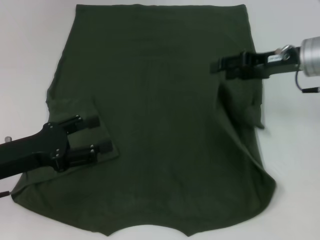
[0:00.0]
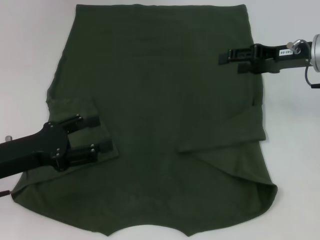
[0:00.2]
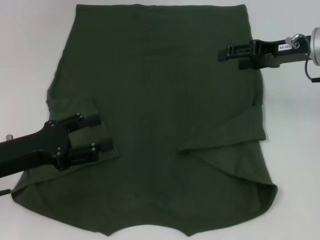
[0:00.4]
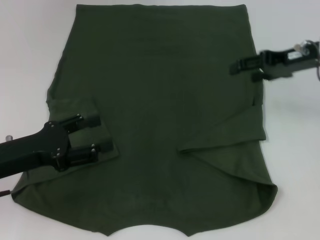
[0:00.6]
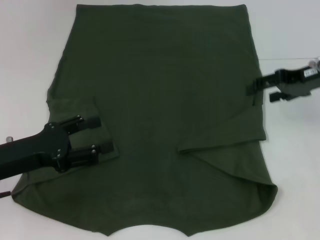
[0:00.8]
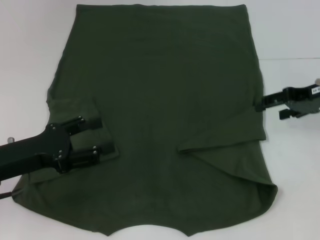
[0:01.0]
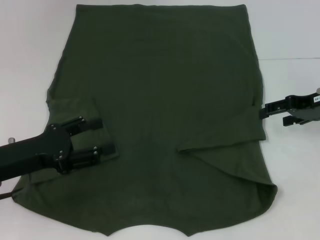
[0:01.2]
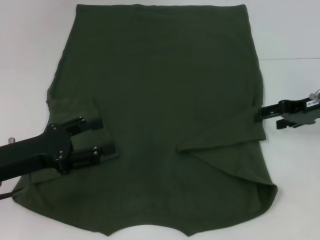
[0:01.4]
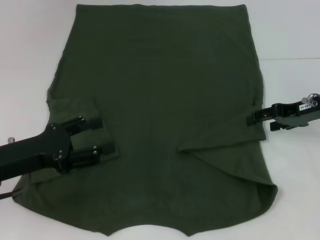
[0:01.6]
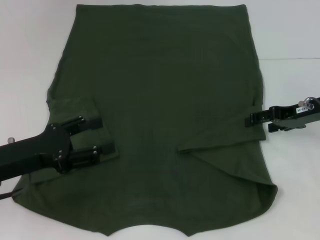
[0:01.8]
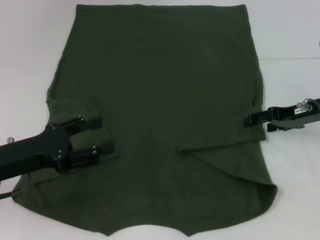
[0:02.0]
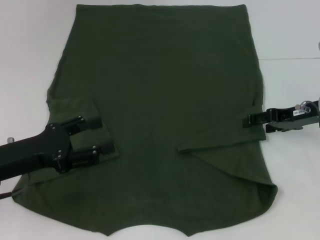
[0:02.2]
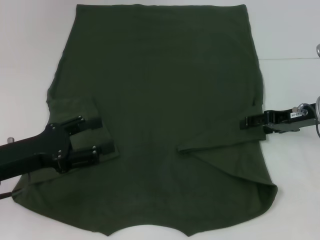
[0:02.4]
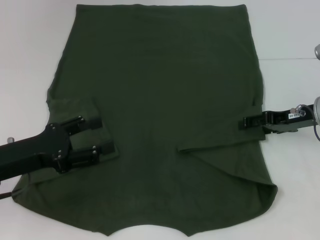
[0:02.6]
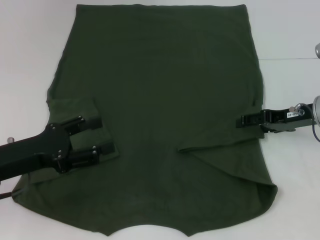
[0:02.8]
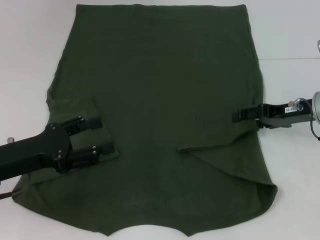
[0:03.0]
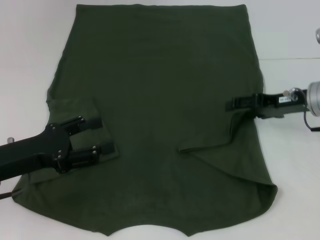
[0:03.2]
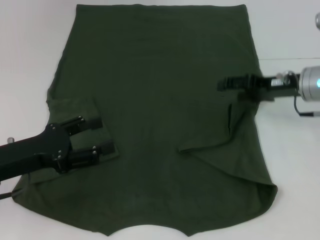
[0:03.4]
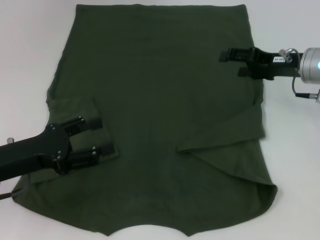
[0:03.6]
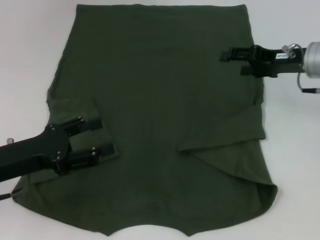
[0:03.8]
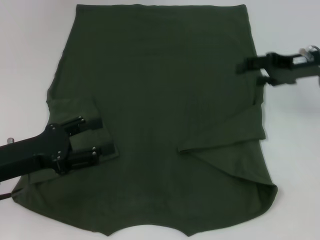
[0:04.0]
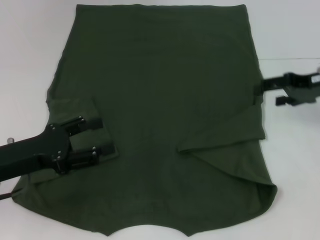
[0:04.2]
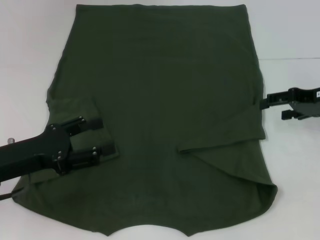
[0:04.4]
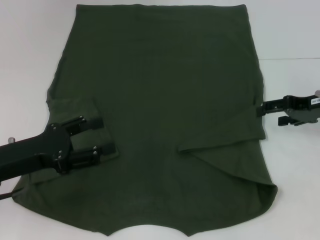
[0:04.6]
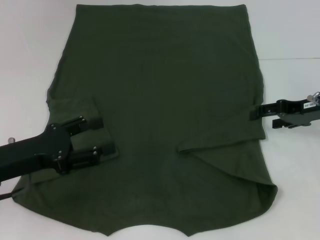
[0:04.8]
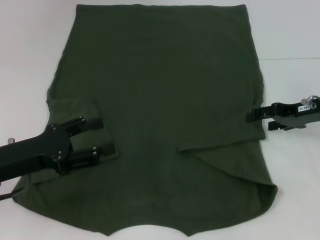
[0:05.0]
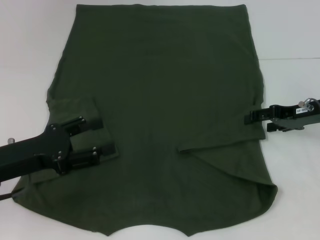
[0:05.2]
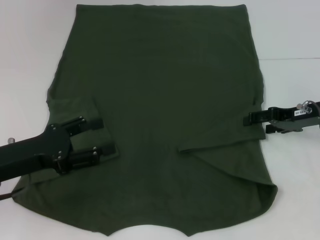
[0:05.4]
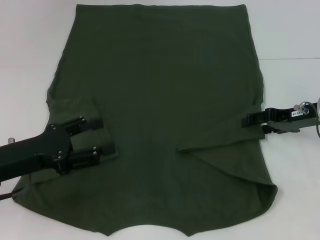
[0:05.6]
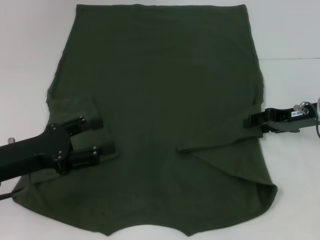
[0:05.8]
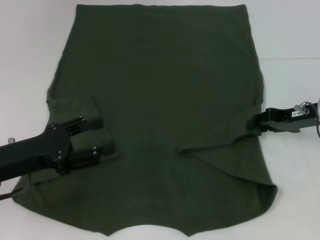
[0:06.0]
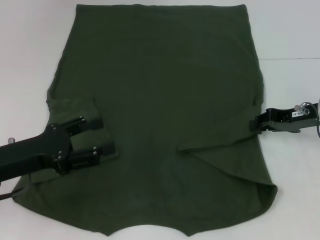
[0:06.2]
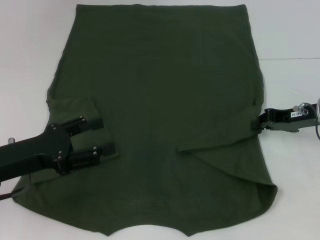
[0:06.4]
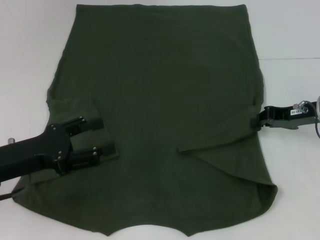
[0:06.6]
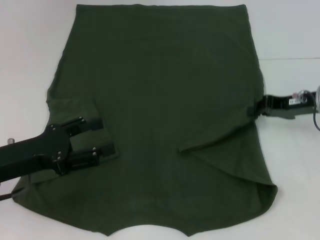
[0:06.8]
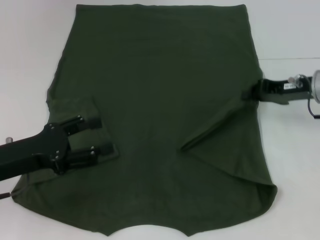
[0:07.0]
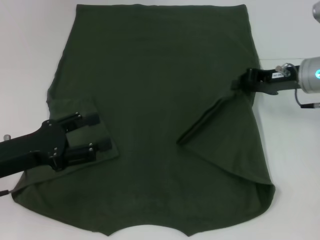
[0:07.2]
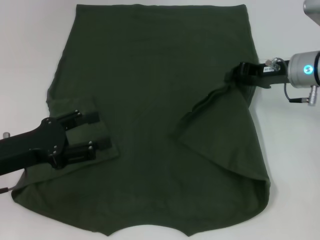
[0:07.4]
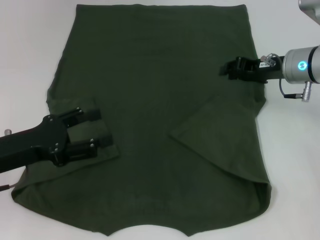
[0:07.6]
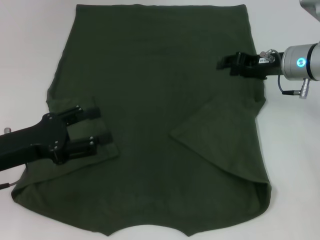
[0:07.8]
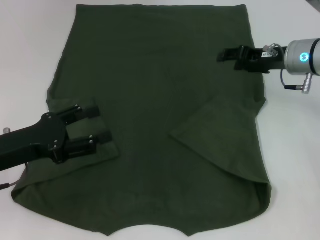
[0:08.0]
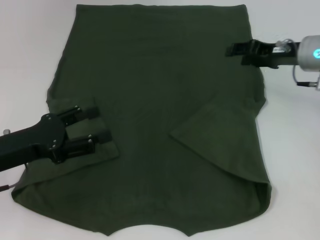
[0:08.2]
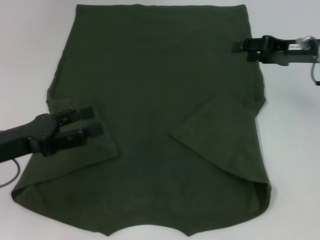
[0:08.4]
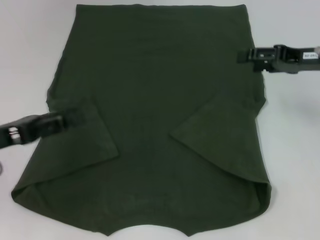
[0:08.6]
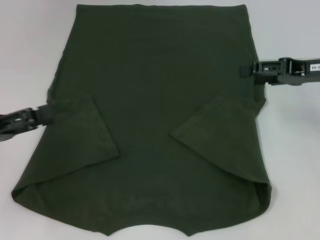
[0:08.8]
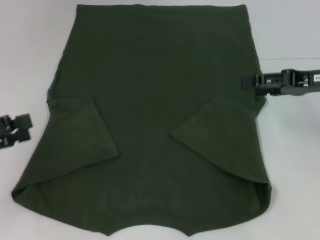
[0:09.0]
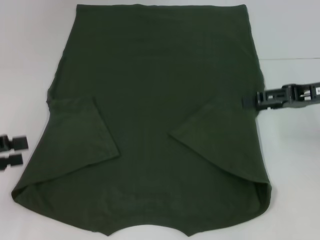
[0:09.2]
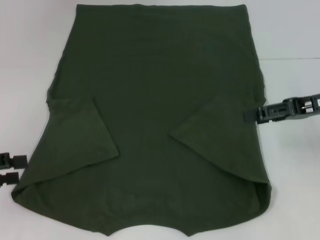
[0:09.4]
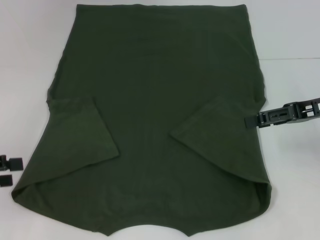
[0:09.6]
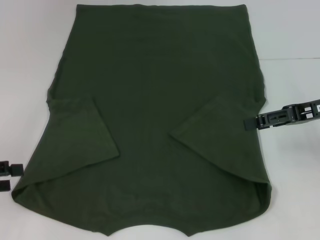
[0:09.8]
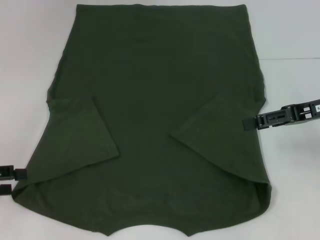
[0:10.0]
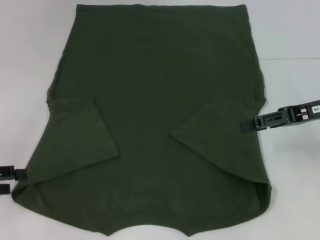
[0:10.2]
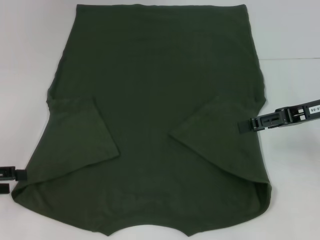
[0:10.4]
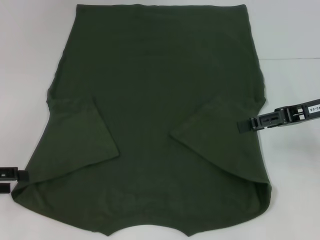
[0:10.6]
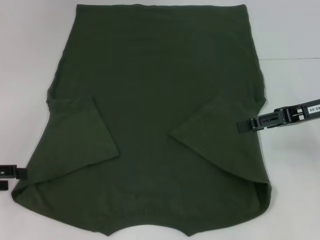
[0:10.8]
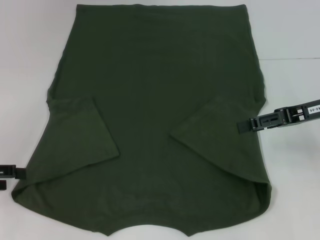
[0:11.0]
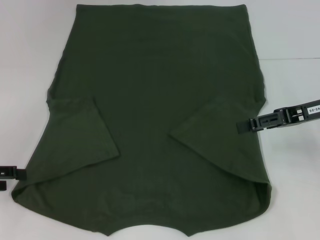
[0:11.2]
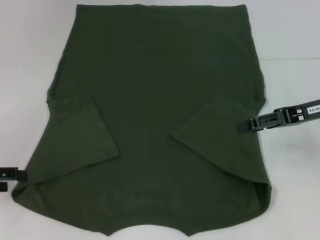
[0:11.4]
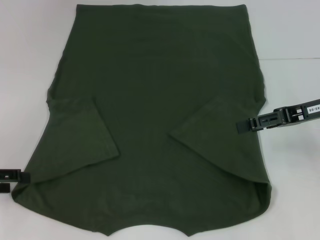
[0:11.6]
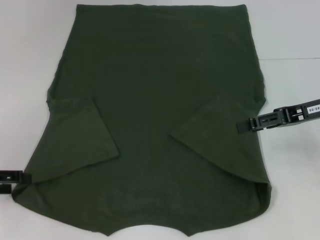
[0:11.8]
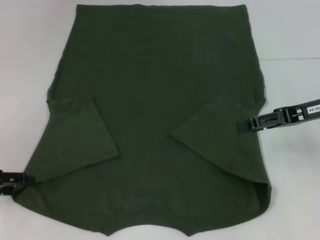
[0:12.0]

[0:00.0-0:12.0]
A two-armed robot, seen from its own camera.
Step, 0:00.0 to 0:08.8: Fold the bottom right sleeve with your right hand.
0:00.0 to 0:01.6: The right gripper moves about 5 cm.
0:01.6 to 0:03.0: There are only small adjustments of the grippers.
0:03.0 to 0:04.4: The right gripper shifts by roughly 5 cm.
0:04.4 to 0:06.0: The right gripper ends up about 5 cm from where it was.
0:06.0 to 0:07.6: The right gripper heads to the left, covering roughly 5 cm, and closes up.
0:07.6 to 0:09.0: The left gripper heads to the left, covering approximately 10 cm. The right gripper is displaced to the right and backward by some 10 cm, and opens up.
0:10.4 to 0:12.0: The grippers move only a little.

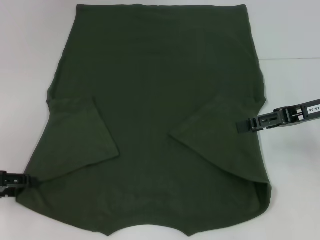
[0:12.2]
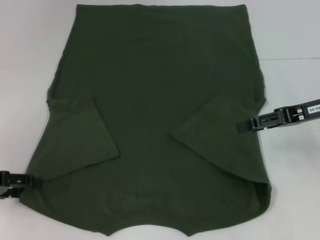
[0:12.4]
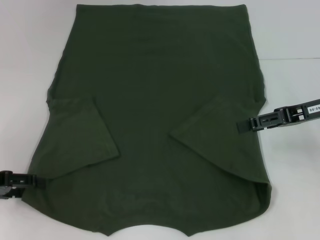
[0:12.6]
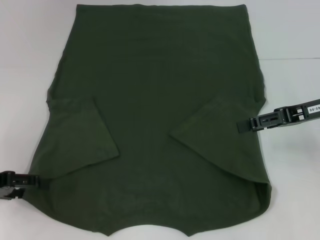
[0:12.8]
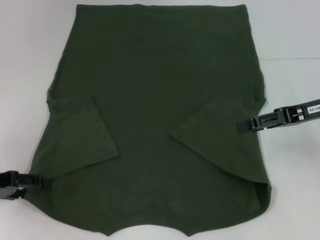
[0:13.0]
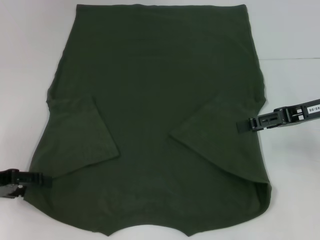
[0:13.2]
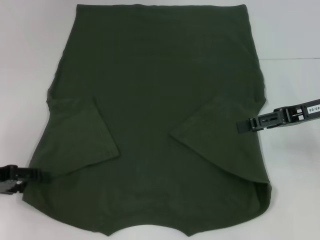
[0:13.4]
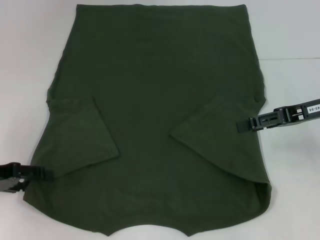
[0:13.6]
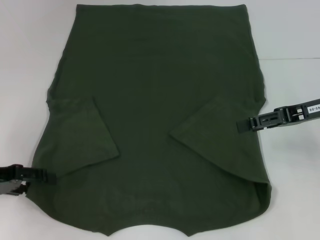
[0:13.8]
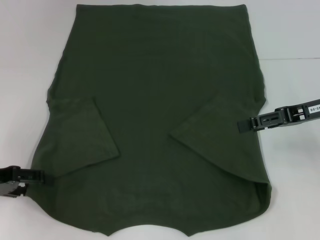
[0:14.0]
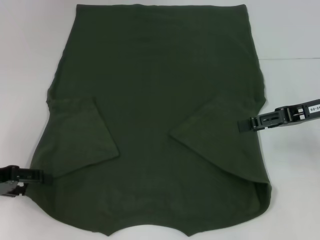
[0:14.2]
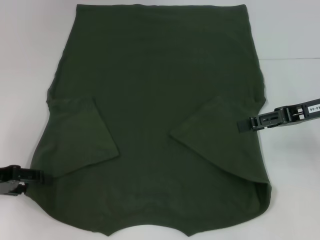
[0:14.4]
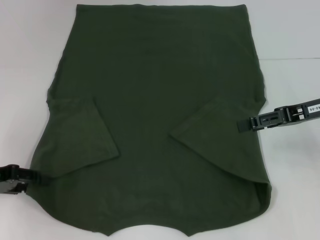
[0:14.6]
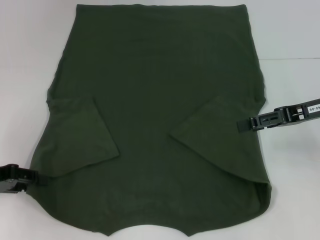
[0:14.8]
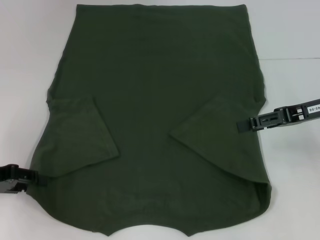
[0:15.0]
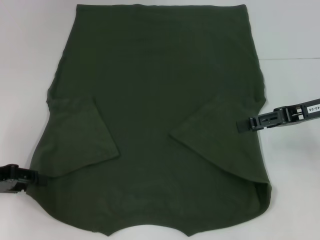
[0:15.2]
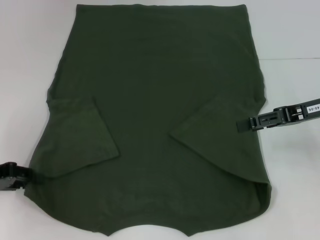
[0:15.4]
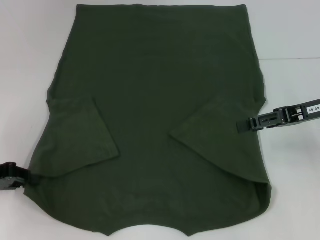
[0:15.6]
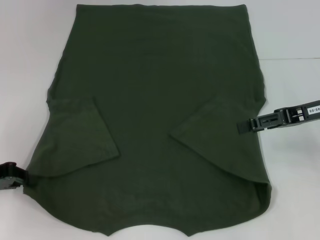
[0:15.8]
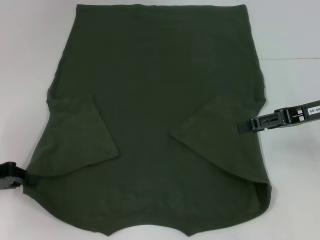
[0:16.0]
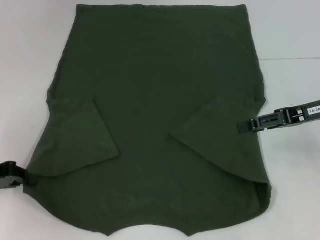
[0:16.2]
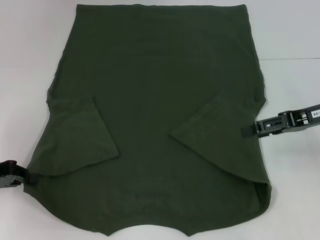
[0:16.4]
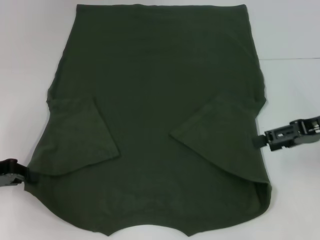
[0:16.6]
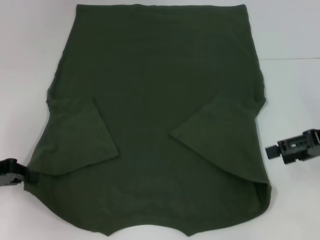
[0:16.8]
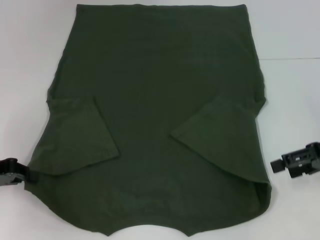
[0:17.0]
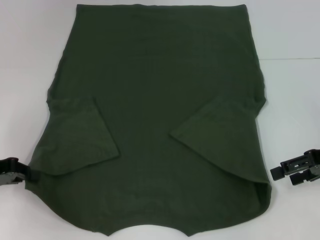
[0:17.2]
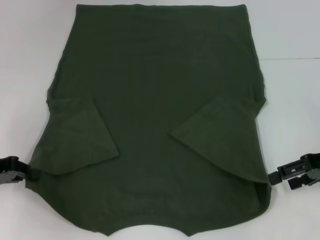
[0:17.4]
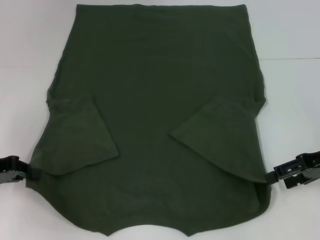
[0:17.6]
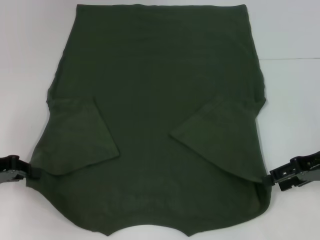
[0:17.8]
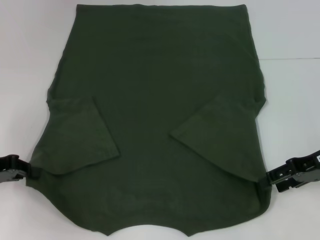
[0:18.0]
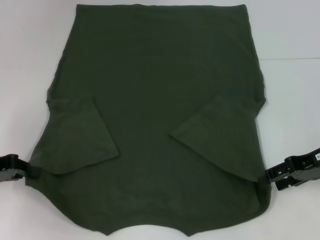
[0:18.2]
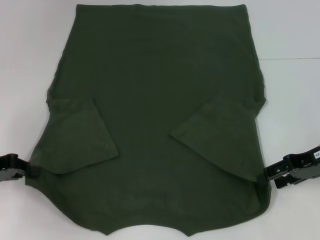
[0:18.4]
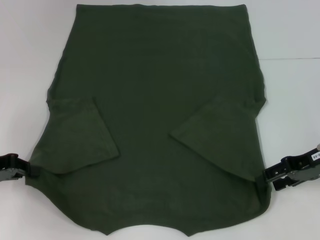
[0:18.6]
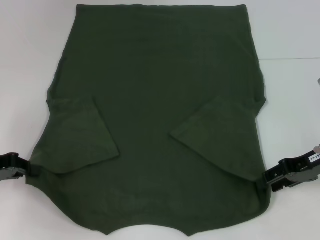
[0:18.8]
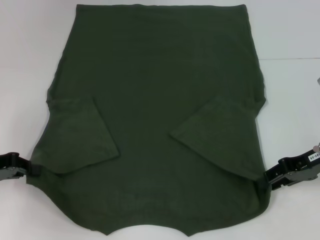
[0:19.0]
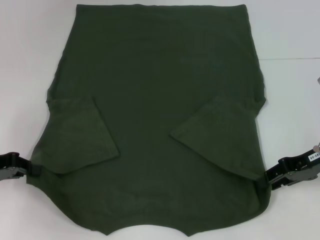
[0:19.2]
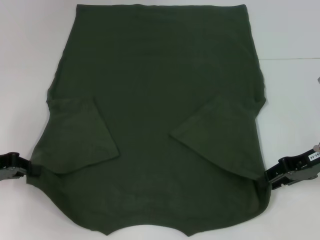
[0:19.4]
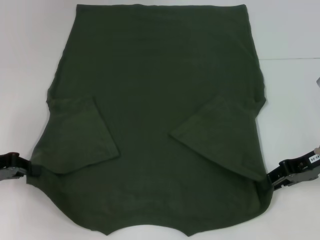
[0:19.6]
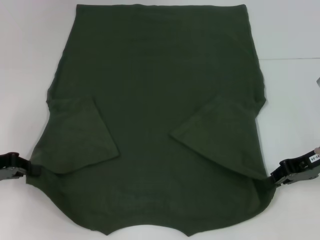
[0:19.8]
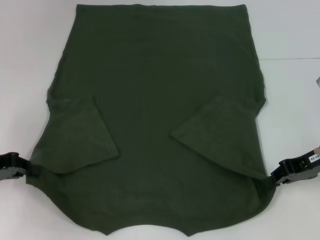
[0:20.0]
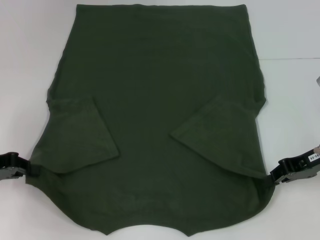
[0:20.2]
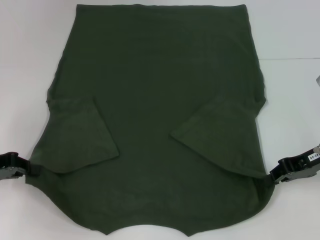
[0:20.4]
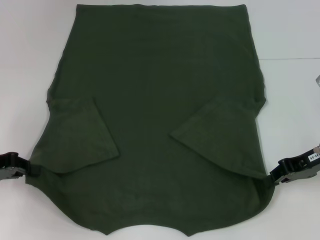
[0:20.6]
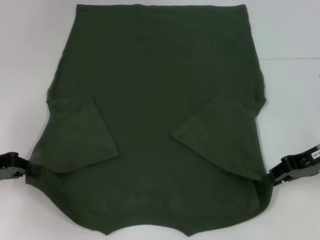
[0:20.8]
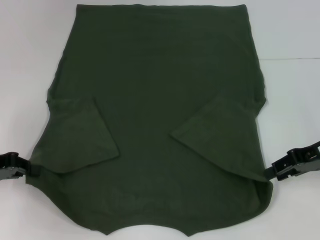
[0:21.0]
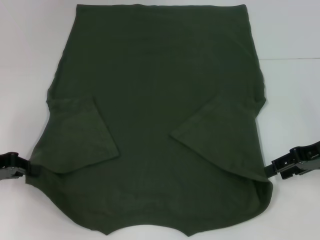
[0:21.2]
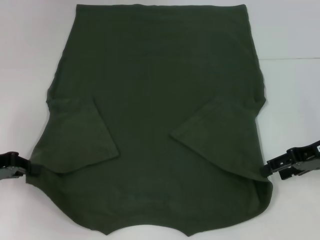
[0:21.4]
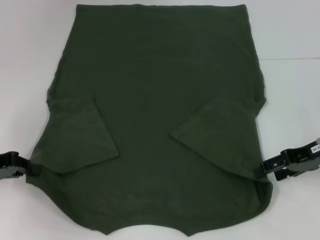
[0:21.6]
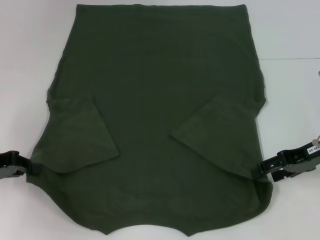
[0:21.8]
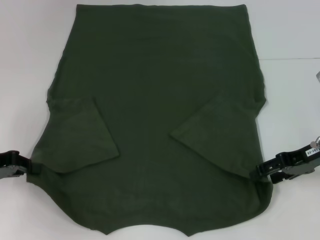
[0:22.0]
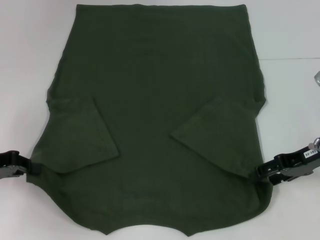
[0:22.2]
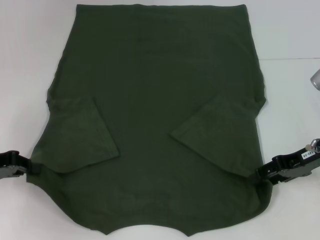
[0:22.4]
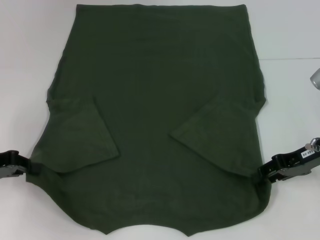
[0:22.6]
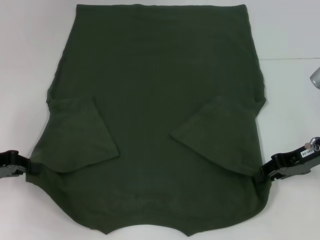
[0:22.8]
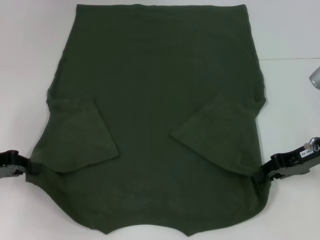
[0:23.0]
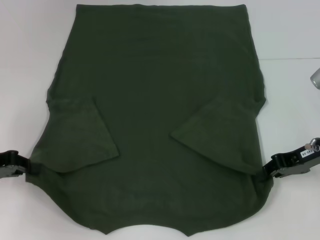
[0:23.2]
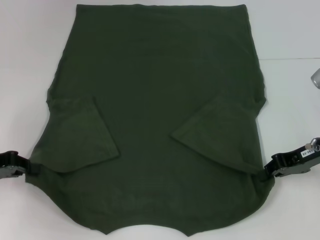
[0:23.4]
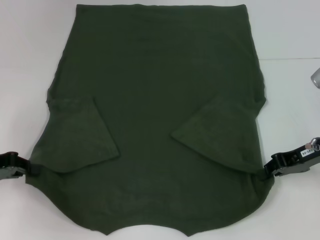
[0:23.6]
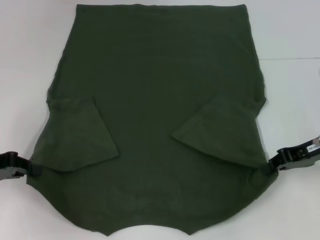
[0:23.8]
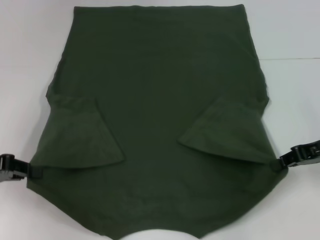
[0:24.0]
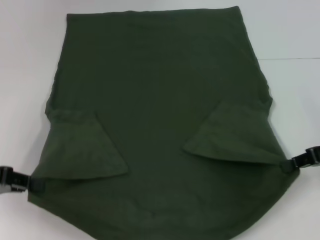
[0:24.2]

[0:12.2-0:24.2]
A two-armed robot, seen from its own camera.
Step, 0:12.2 to 0:16.6: Grab the bottom left corner with your left hand.
Step, 0:16.8 to 0:23.6: Grab the bottom right corner with your right hand.
0:12.2 to 0:13.8: There are only small adjustments of the grippers.
0:13.8 to 0:15.2: The left gripper closes.
0:15.2 to 0:16.6: The left gripper closes its fingers.
0:16.6 to 0:18.2: There are only small adjustments of the grippers.
0:18.2 to 0:19.8: The right gripper closes.
0:19.8 to 0:22.6: The grippers stay close to where they were, moving slightly.
0:22.6 to 0:24.2: The right gripper moves some 5 cm, and closes.
